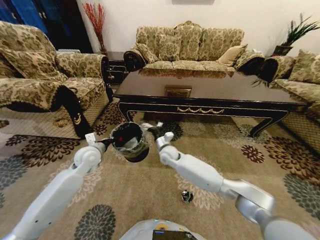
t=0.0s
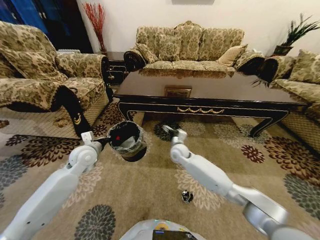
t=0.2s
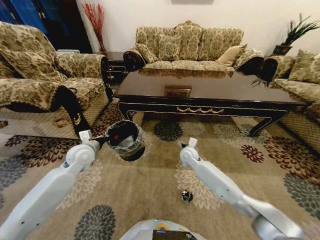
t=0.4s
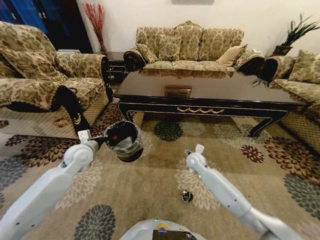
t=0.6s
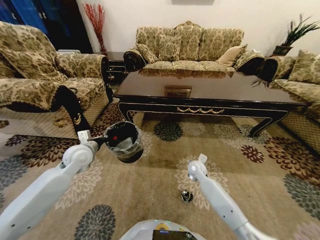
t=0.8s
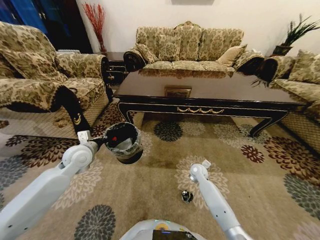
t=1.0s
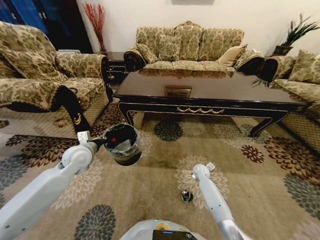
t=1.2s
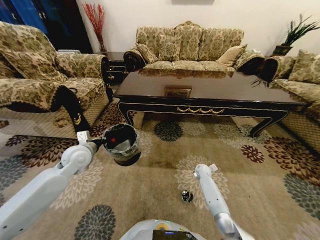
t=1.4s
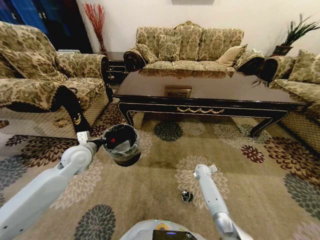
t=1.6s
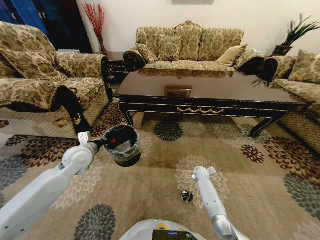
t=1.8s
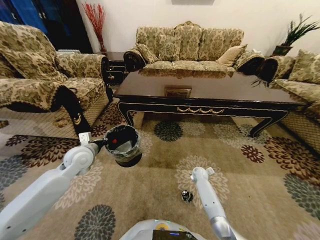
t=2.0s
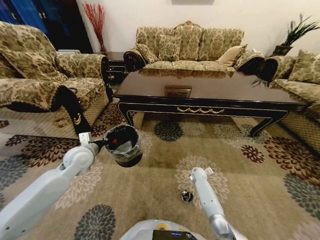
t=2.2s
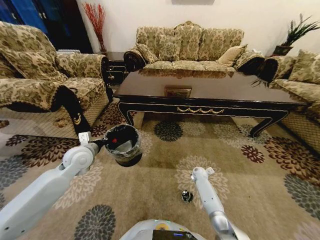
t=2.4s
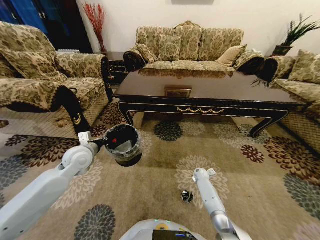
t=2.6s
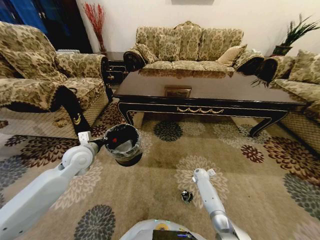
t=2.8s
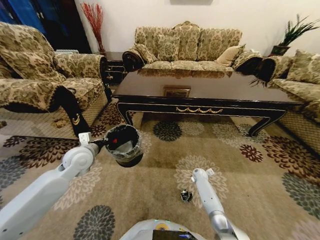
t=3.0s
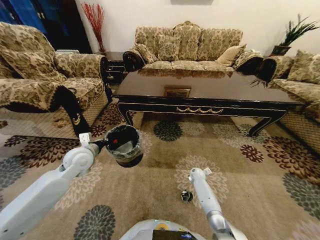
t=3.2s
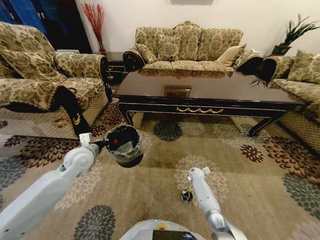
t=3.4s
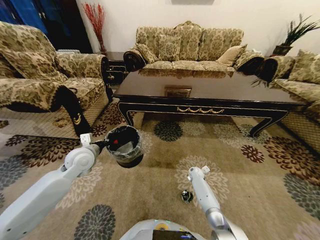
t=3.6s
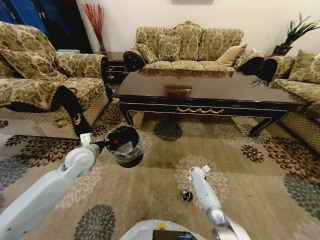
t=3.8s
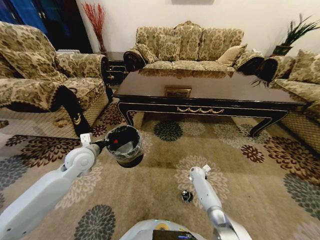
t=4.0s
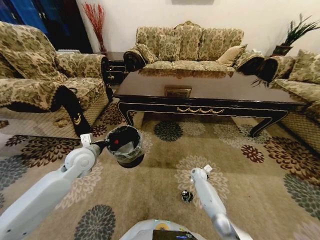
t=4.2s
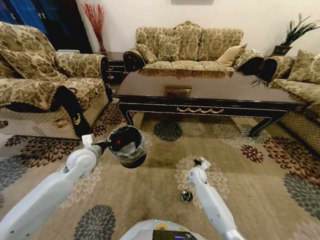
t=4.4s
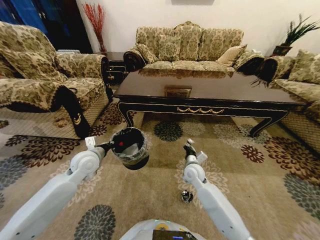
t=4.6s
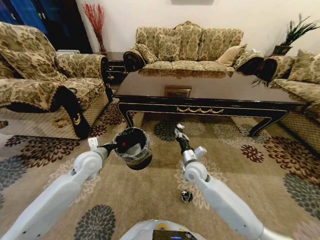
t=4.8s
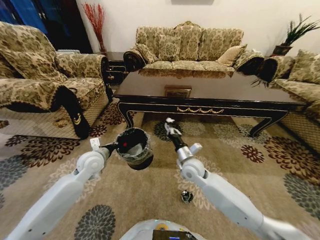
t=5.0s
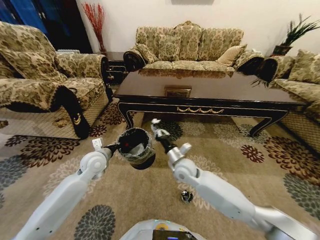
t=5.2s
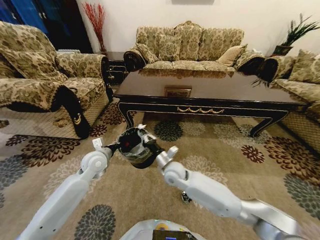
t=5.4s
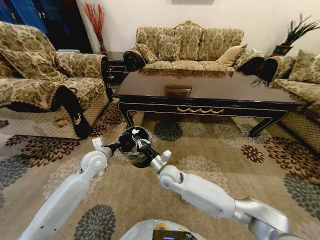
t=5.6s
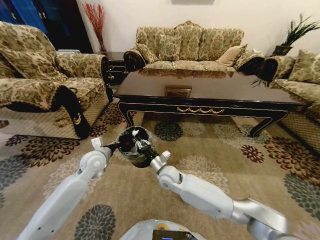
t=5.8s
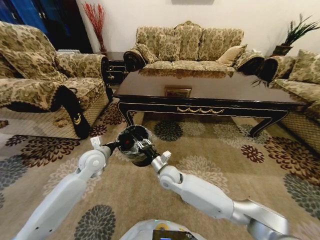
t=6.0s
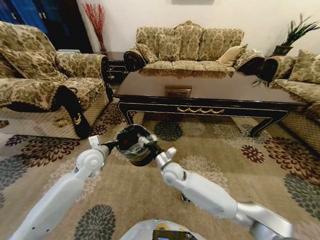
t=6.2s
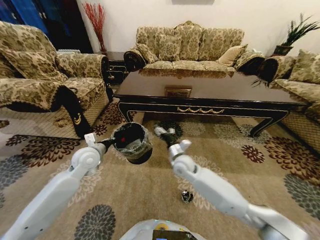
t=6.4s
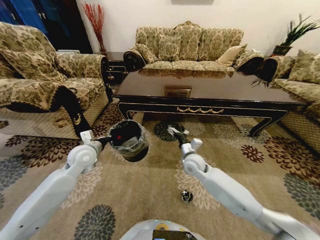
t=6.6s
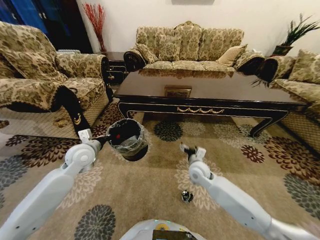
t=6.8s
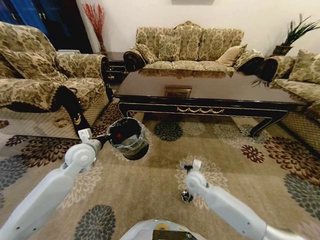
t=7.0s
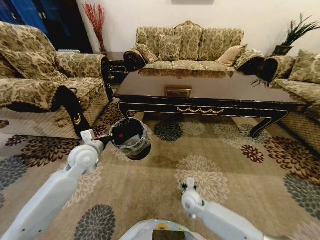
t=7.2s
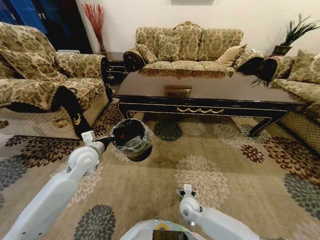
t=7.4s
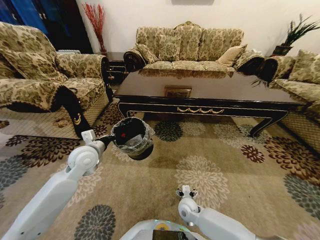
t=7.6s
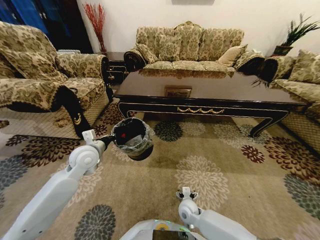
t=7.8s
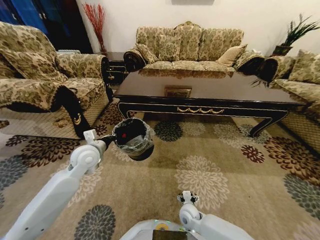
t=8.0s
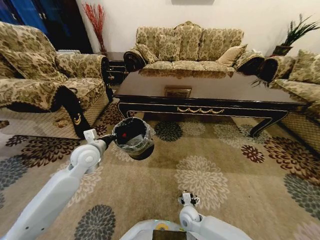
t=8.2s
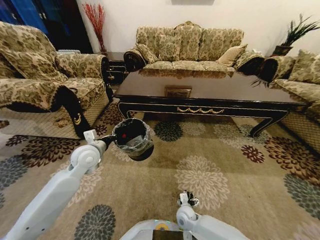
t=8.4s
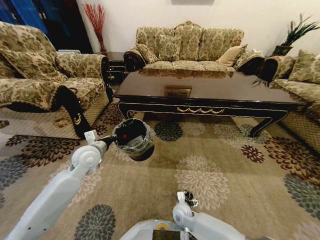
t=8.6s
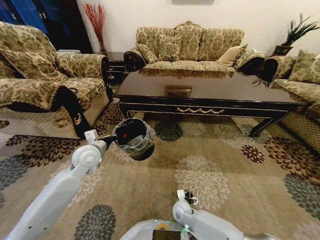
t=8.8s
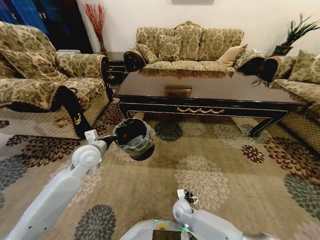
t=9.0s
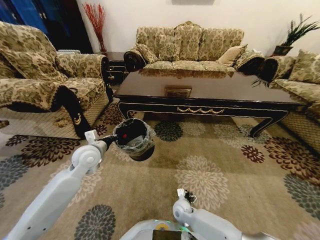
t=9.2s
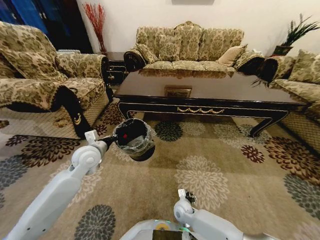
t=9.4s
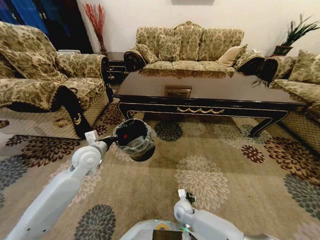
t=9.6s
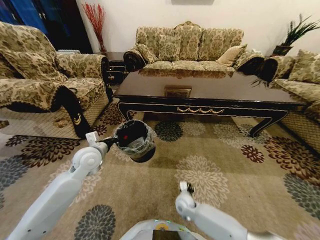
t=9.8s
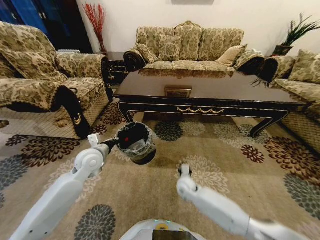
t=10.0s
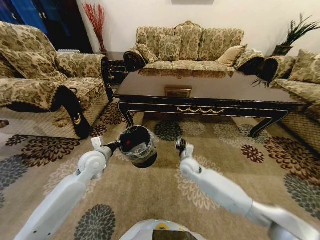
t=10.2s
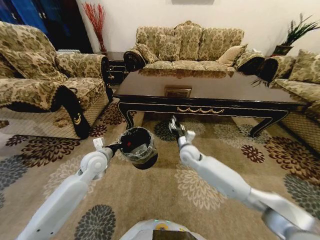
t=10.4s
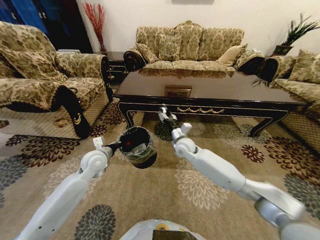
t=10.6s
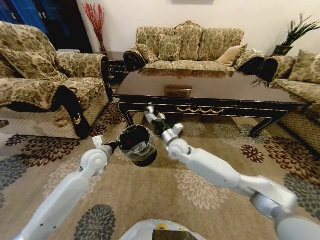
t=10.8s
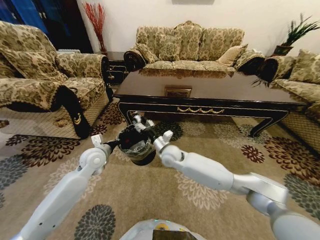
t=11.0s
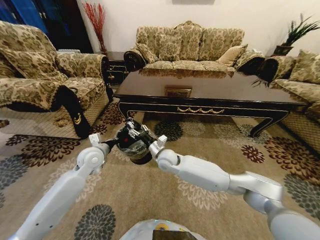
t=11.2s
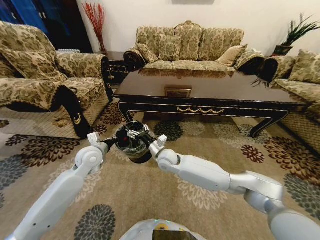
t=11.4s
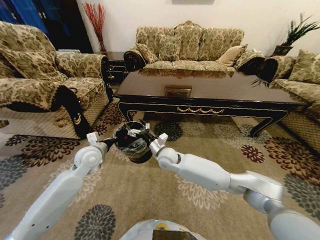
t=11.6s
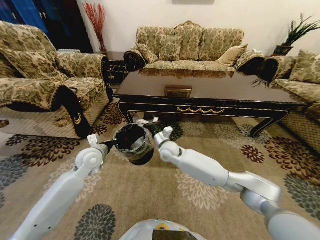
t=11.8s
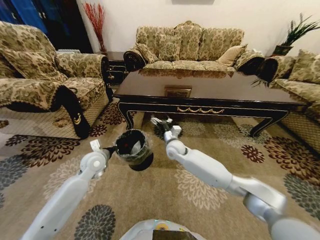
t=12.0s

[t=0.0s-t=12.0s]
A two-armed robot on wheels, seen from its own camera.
Task of the whole recording: Move to the front of the table and pick up the trash from the floor, then place it into the trash bin.
t=0.0s to t=1.6s: The right gripper heads to the right and downward, covering approximately 30 cm.
t=1.6s to t=3.0s: The grippers make only small movements.
t=3.0s to t=4.4s: The right gripper heads upward and to the left, covering approximately 10 cm, and closes its fingers.
t=4.4s to t=6.0s: The right gripper moves to the left and upward, some 20 cm.
t=6.0s to t=7.6s: The right gripper shifts approximately 20 cm downward, to the right and backward, and opens.
t=7.6s to t=9.0s: There are only small adjustments of the grippers.
t=9.0s to t=10.4s: The right gripper travels upward and forward by about 30 cm, and closes up.
t=10.4s to t=12.0s: The right gripper travels to the left by roughly 5 cm, and opens.

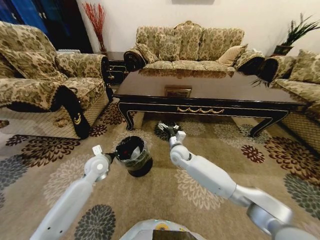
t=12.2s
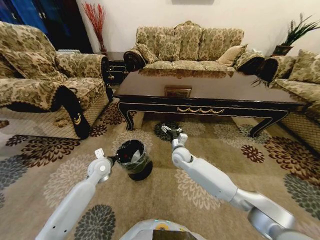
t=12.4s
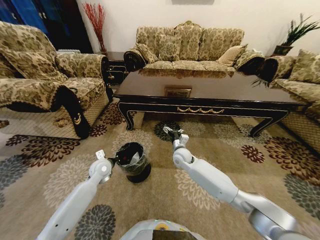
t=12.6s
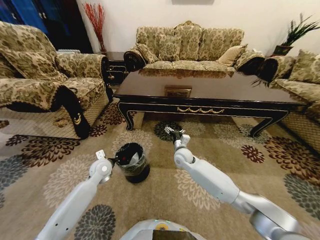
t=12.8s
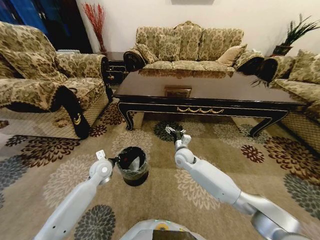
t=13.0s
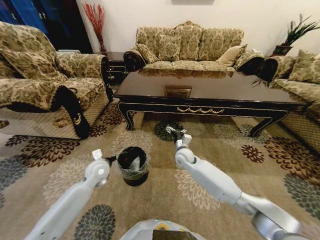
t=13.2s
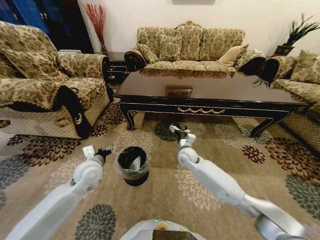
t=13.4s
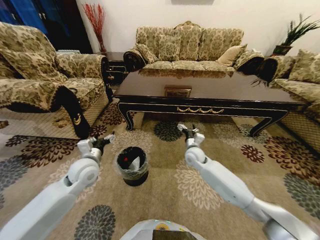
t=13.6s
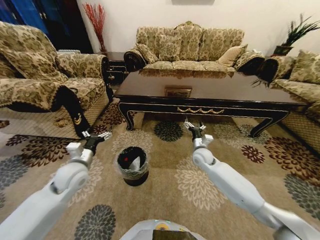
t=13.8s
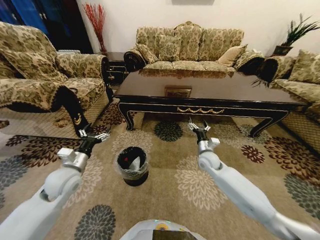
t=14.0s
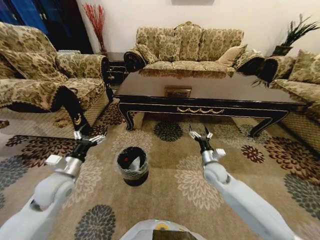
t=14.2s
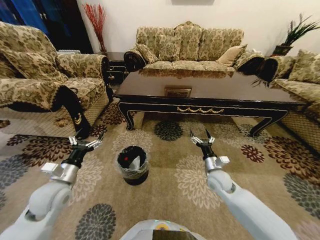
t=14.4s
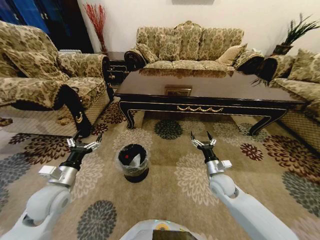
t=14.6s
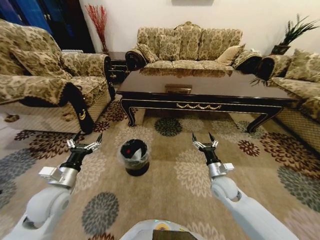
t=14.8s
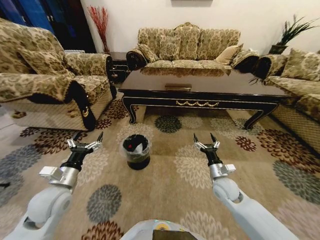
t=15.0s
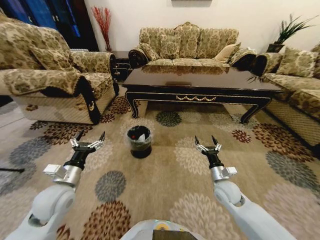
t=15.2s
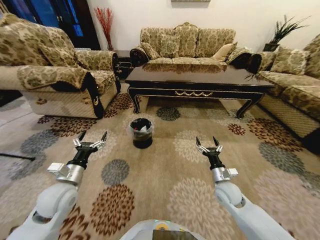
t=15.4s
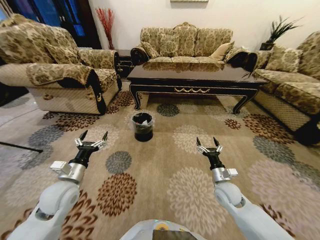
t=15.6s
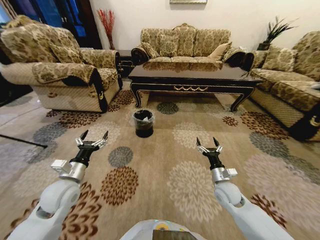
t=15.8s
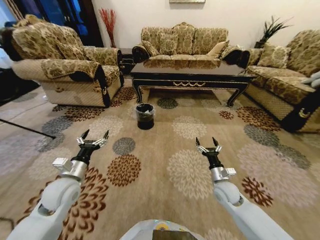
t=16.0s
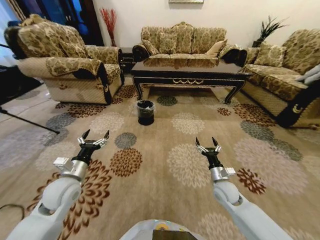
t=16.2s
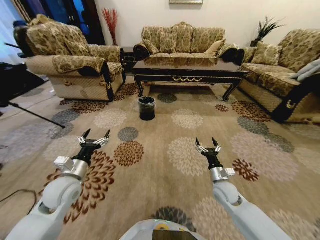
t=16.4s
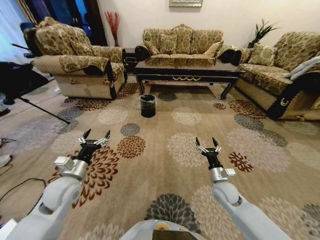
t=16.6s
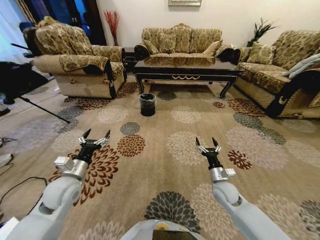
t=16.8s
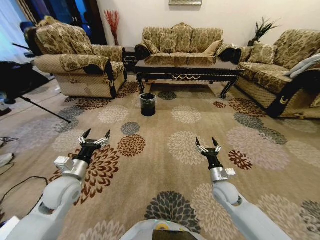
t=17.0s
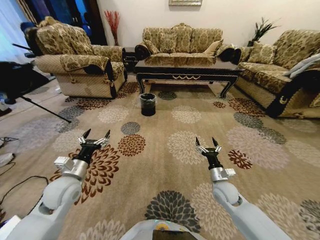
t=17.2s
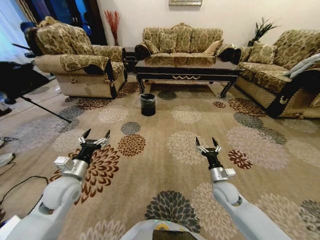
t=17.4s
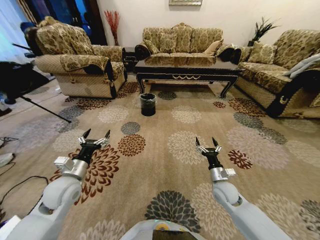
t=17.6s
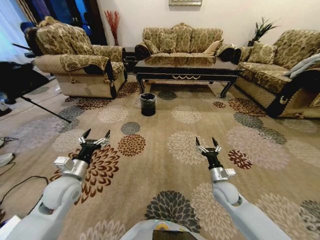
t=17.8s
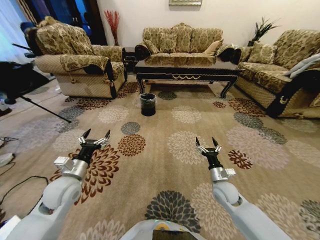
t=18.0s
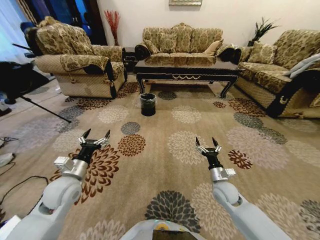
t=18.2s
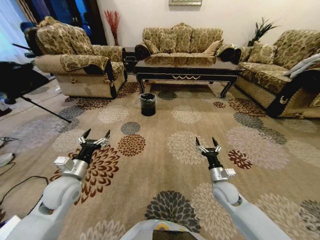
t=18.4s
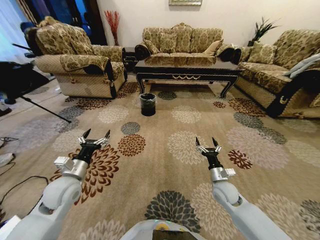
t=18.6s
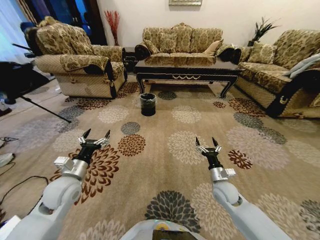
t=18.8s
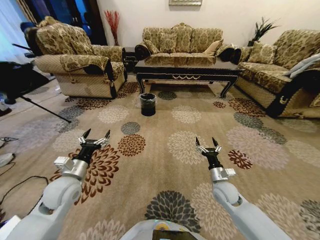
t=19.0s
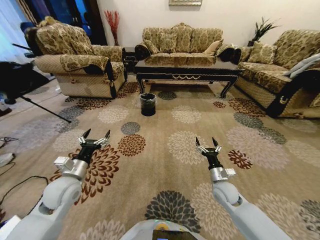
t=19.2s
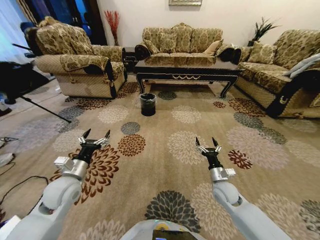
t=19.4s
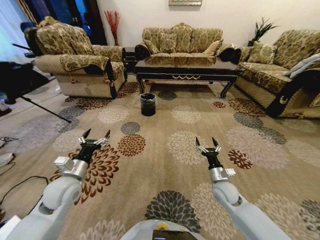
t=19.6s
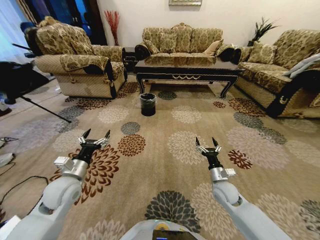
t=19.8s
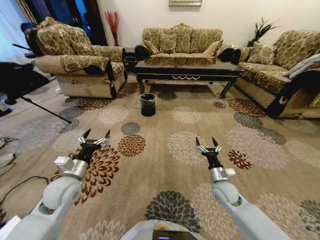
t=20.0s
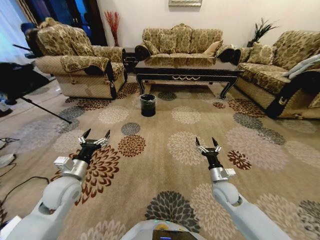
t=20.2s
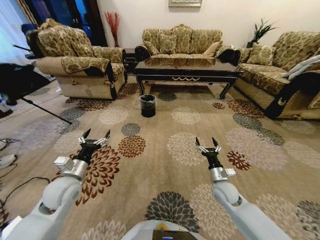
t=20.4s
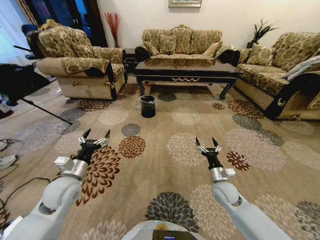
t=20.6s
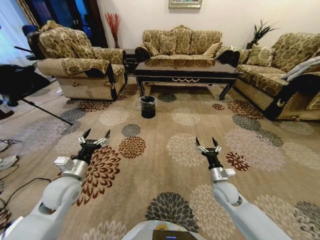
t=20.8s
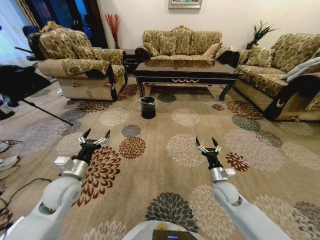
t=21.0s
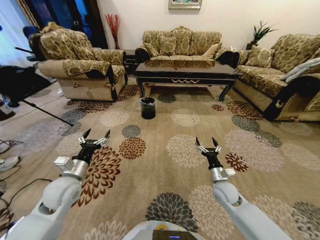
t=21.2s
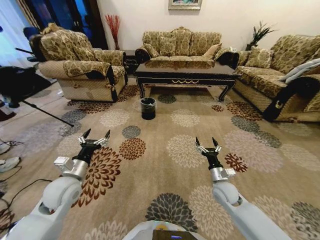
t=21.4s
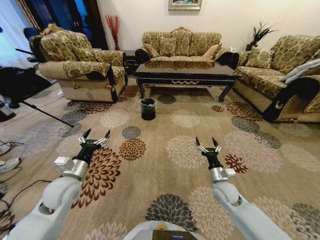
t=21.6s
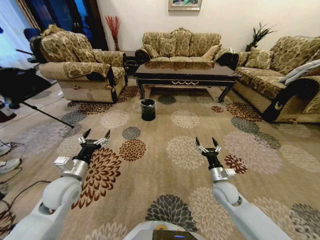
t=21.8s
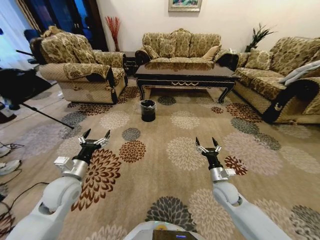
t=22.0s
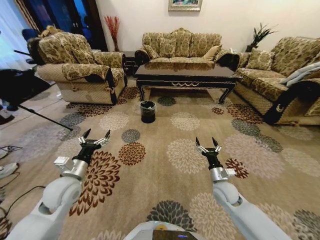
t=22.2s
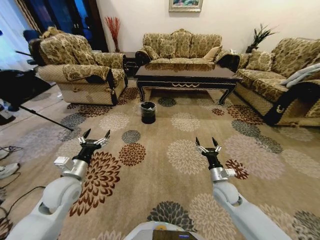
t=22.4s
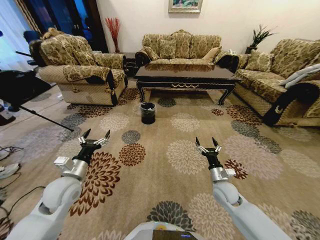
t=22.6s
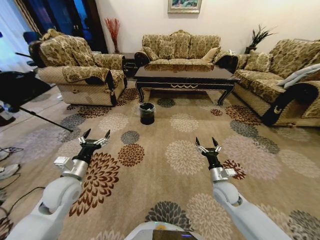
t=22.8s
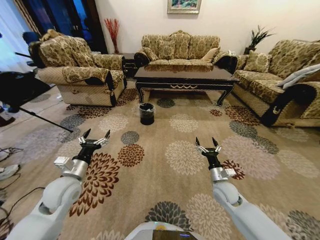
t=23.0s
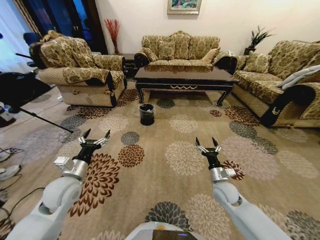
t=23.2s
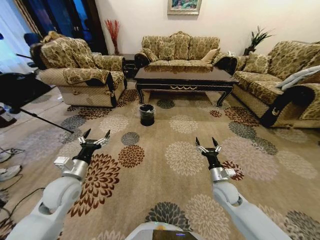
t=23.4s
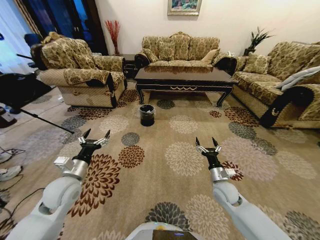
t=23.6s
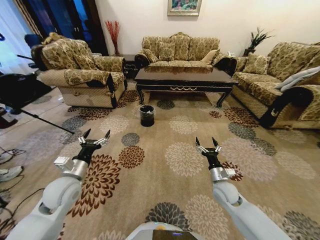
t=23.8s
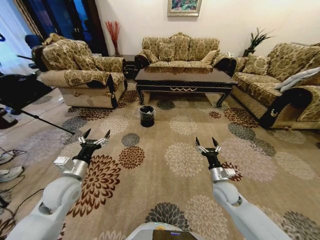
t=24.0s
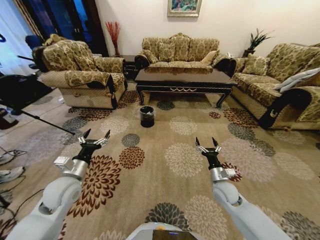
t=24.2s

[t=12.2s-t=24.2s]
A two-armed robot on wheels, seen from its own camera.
Task of the whole recording: Move to the front of the table and pick up the trash from the floor, then place it into the trash bin.
t=12.2s to t=13.8s: The right gripper moves to the right, approximately 10 cm. The left gripper travels backward and upward by approximately 10 cm, and opens up.
t=13.8s to t=15.2s: The left gripper travels backward by approximately 5 cm, while the right gripper is displaced backward and to the right by some 15 cm.
t=16.6s to t=19.8s: Both grippers stay about where they are.
